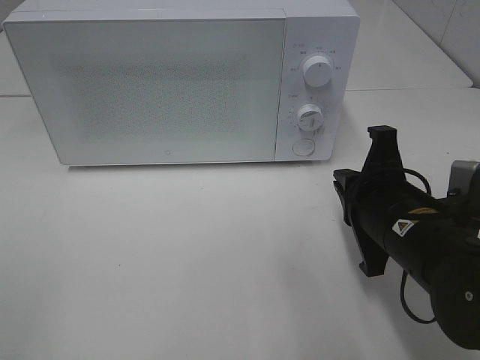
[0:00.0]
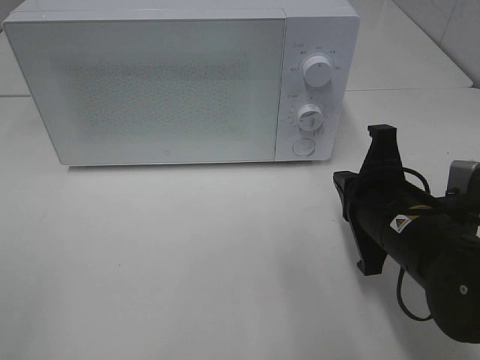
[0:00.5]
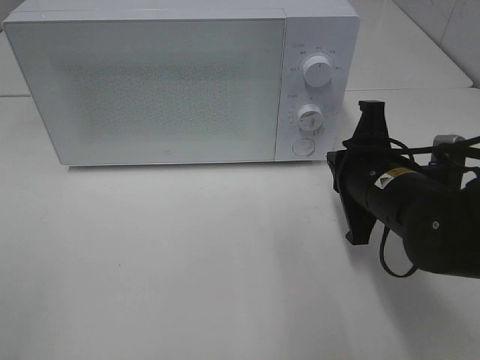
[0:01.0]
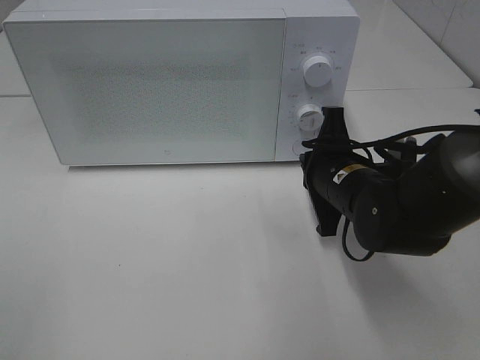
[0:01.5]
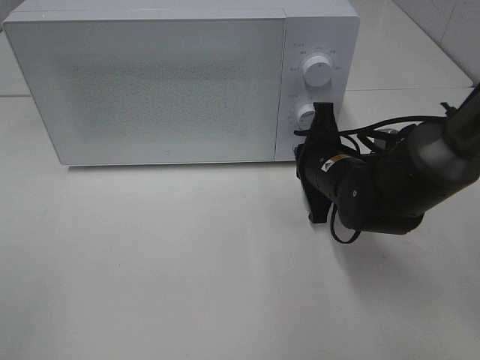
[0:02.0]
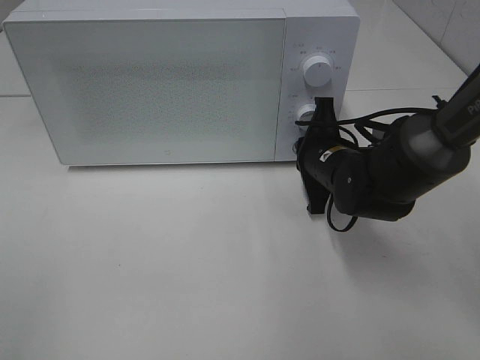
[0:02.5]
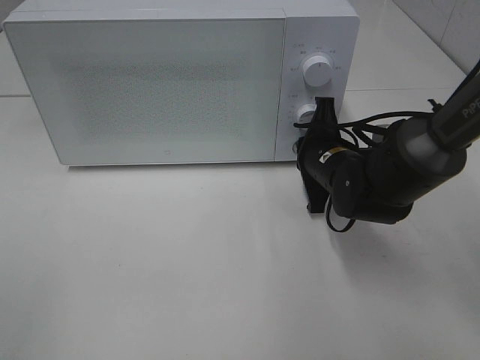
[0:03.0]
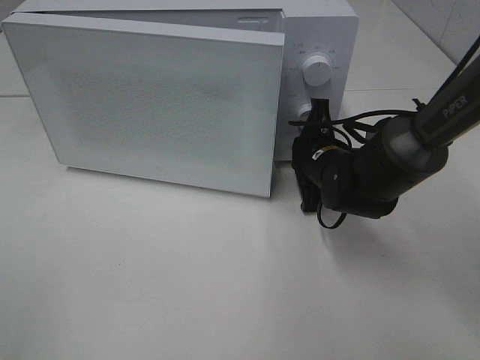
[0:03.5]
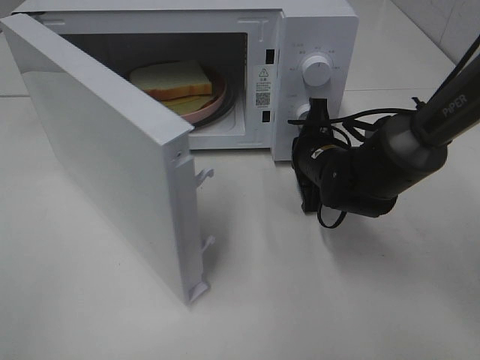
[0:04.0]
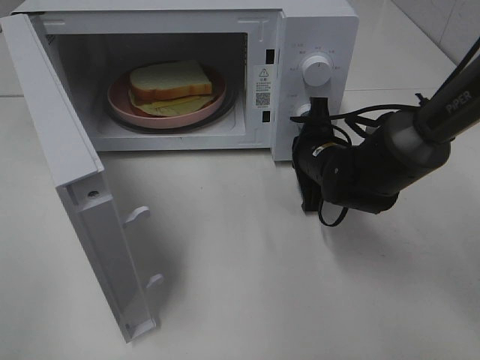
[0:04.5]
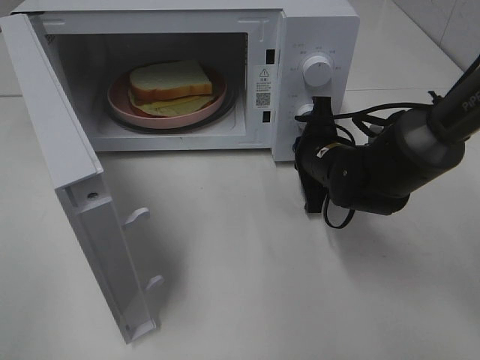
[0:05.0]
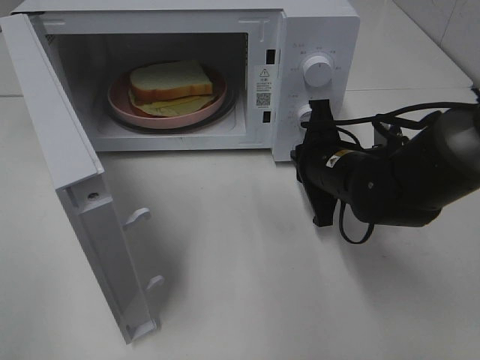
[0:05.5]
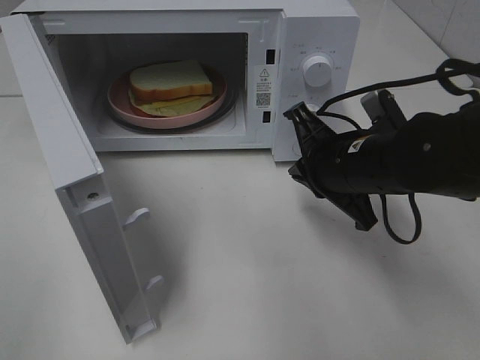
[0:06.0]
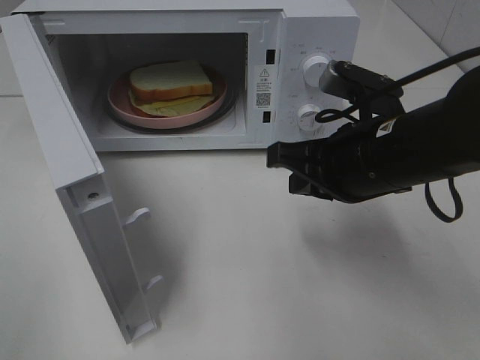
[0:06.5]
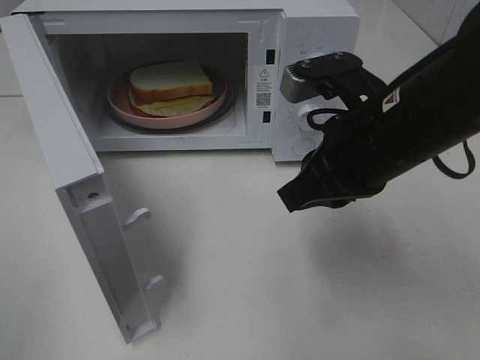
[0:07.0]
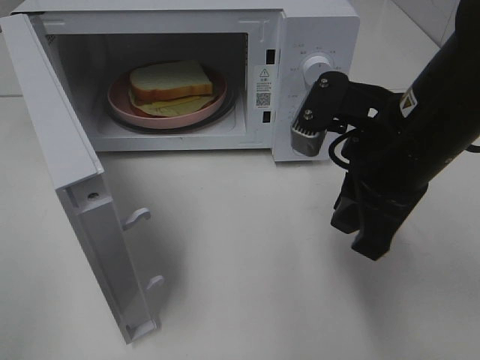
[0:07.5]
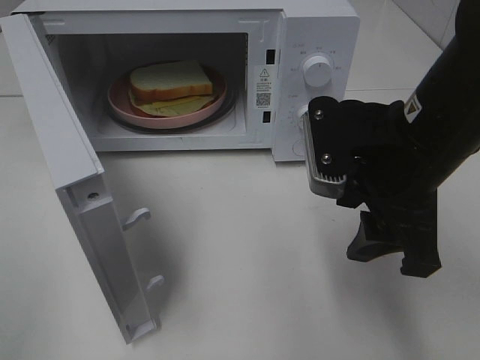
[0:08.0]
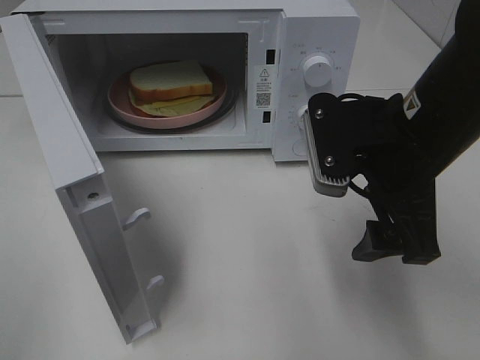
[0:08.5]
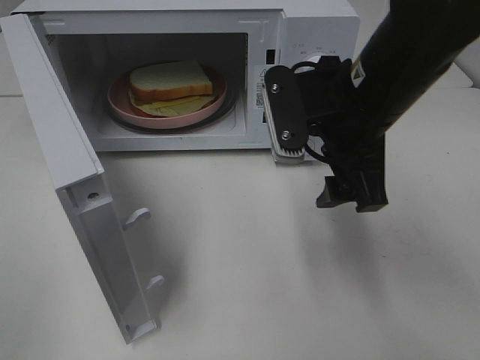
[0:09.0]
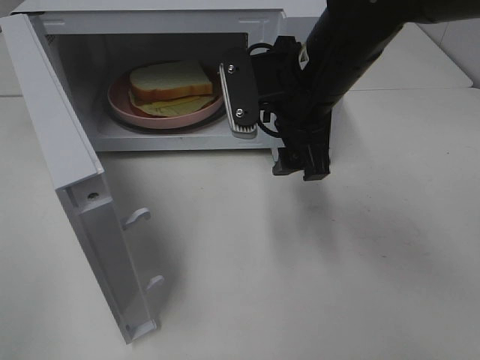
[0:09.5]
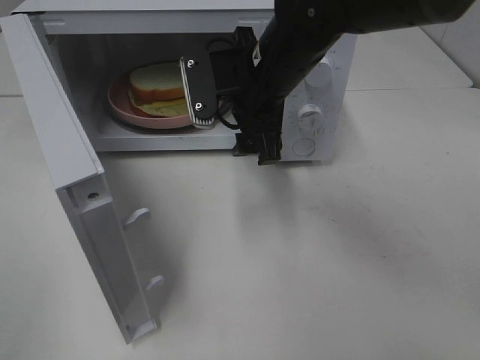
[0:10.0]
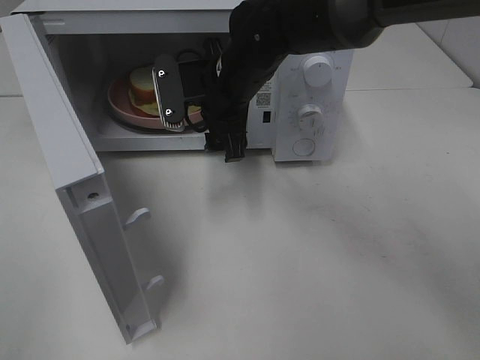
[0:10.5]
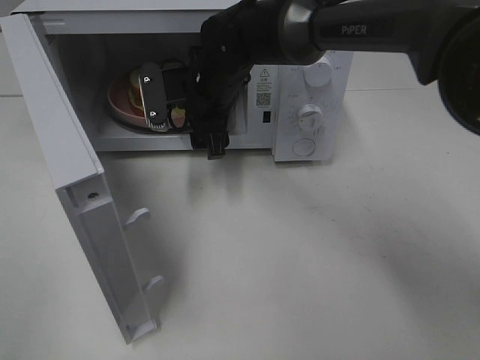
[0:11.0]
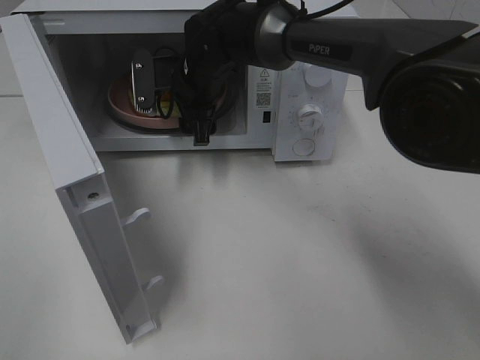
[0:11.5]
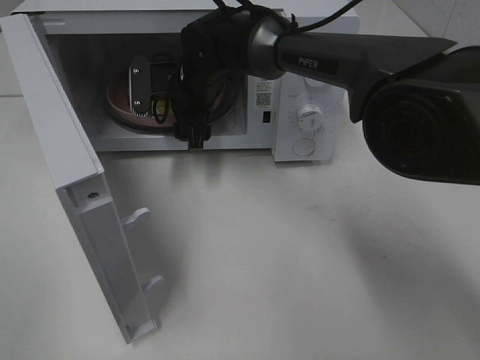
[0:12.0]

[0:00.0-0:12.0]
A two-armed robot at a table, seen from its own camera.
Task of the whole recording: Heat Sandwich.
Step, 0.0 to 5.0 s: Right hand: press the switch.
0.0 to 2.0 s: The right gripper heads forward, covering approximately 10 cm.
4.0 to 6.0 s: The right gripper is displaced backward and upward by about 10 cm.
6.0 to 8.0 s: The right gripper goes some 10 cm upward and backward, and opens up.
8.0 to 10.0 s: The right gripper goes roughly 15 cm forward and to the left.
10.0 to 12.0 s: The right gripper is displaced forward, to the left and downward by about 15 cm.

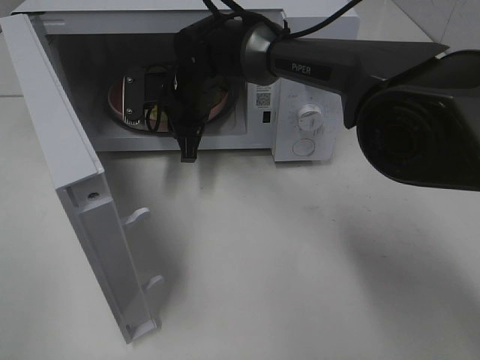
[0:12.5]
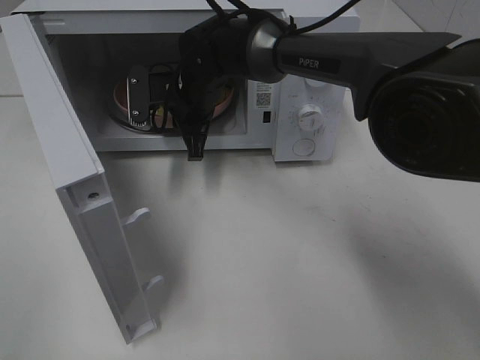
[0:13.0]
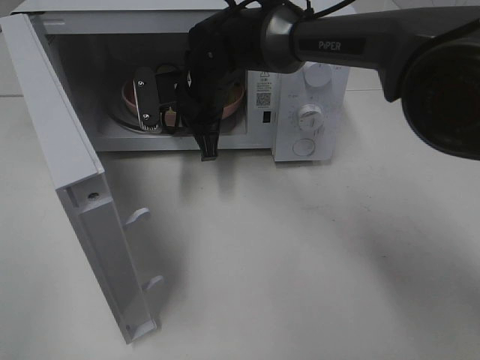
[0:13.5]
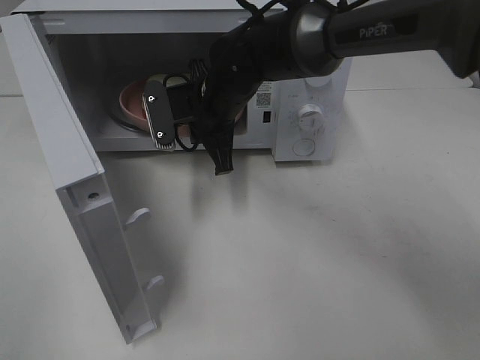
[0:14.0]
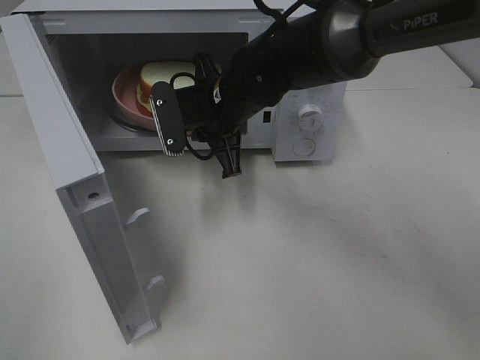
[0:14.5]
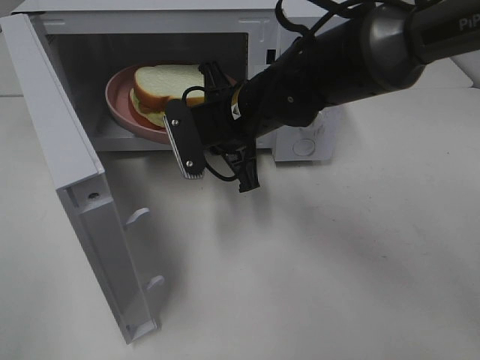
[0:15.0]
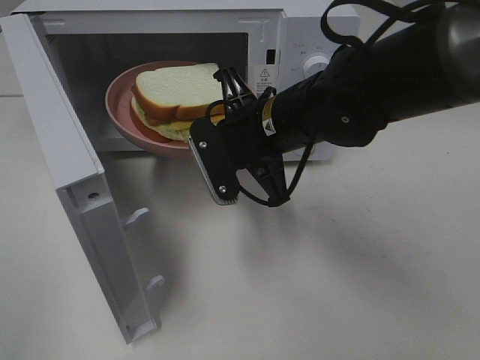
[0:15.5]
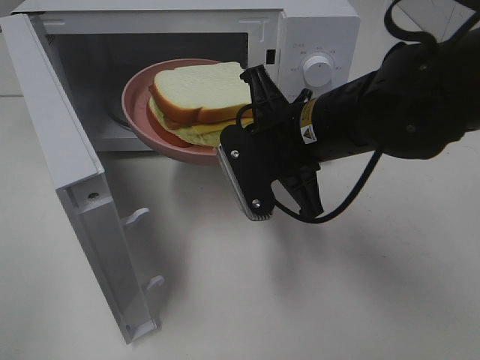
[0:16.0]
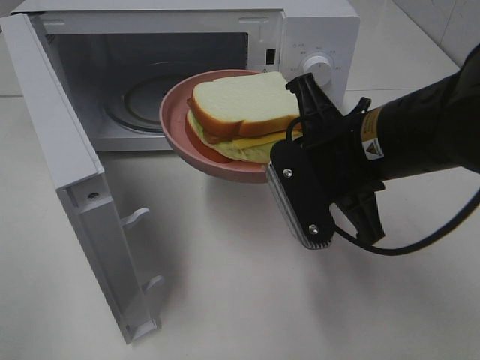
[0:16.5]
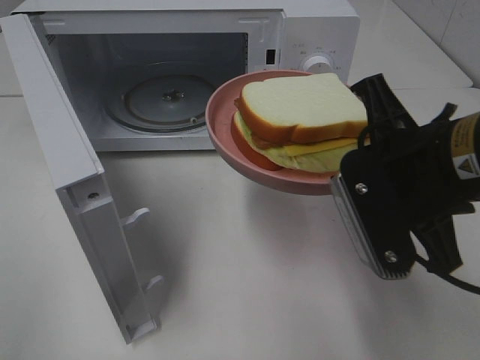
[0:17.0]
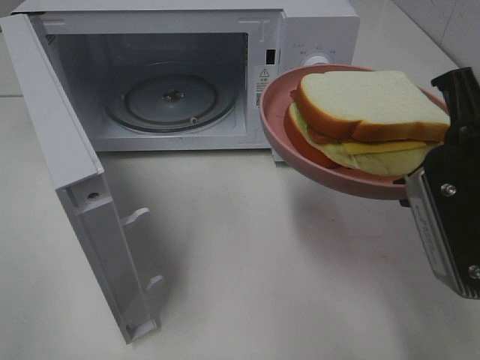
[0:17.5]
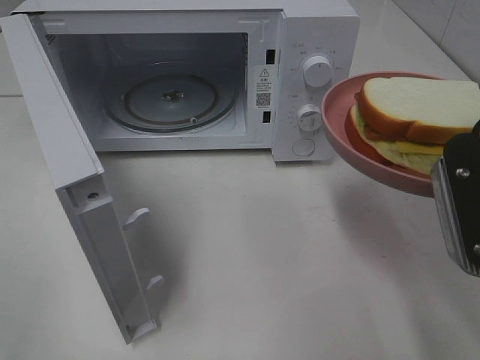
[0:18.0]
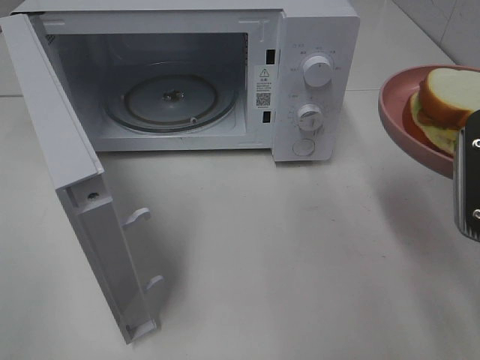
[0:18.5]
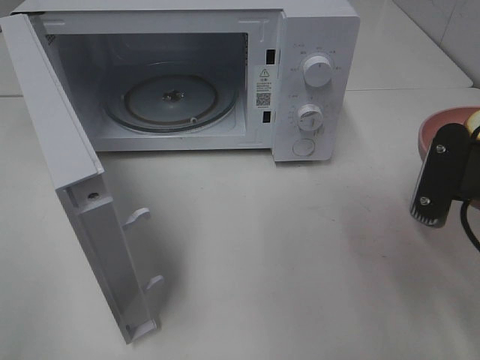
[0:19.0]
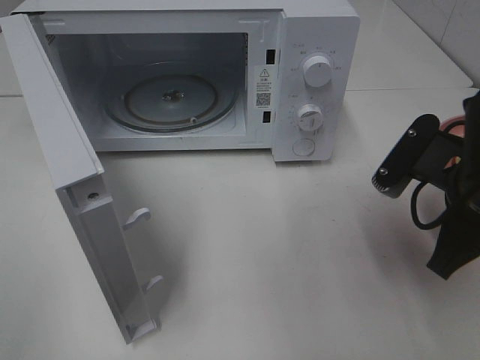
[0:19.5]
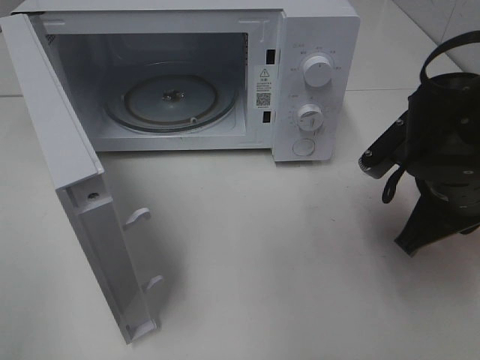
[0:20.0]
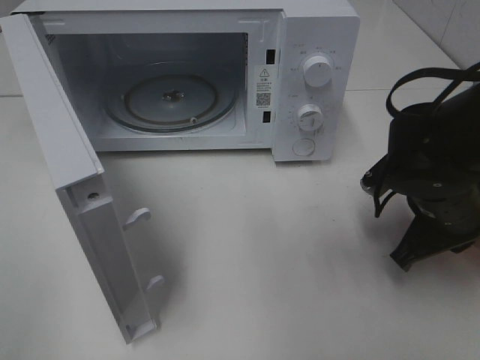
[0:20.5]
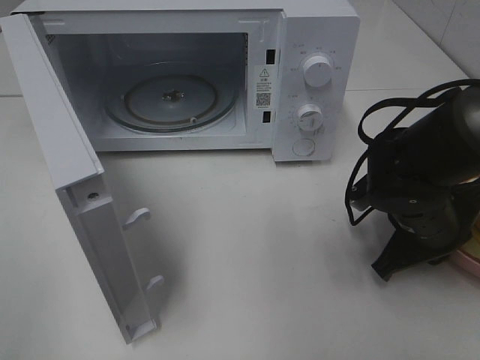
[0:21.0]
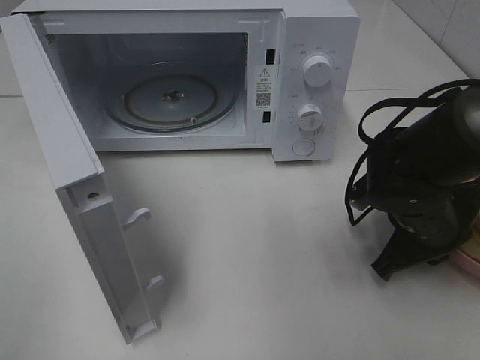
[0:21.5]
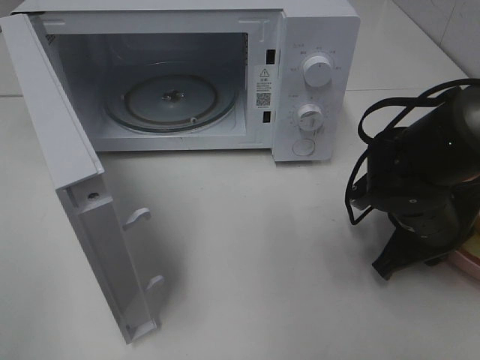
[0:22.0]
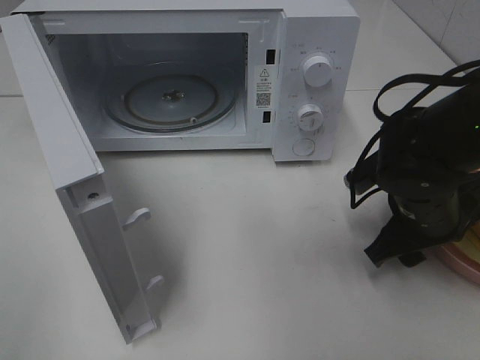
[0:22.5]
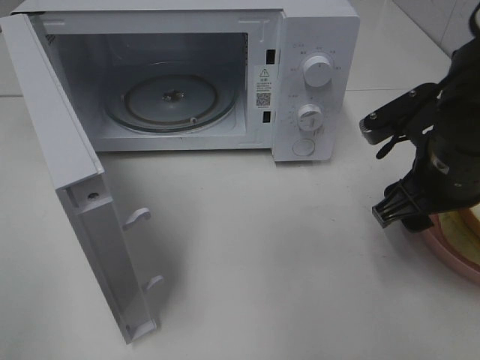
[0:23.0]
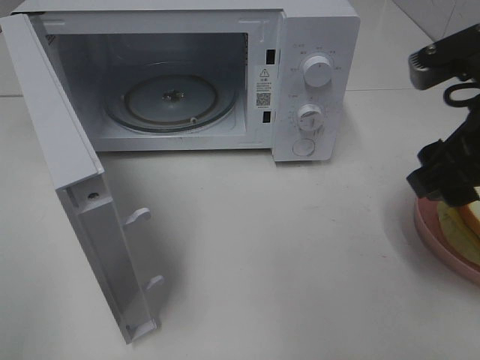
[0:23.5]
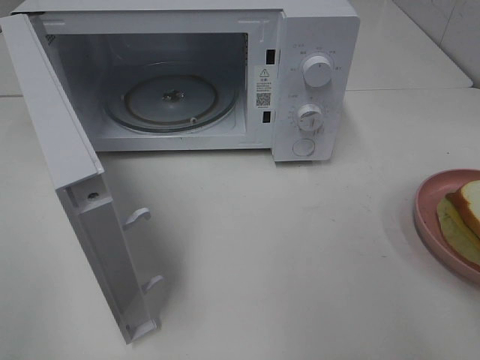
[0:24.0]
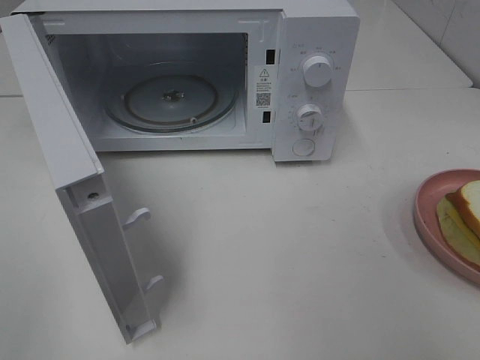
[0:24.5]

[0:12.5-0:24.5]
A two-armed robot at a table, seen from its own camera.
Task of the whole recording: Heat Sandwich.
Step, 13.0 to 23.5 s: Right hand: place the plate on the table.
12.5 to 14.5 s: The right gripper heads backward and to the right, covering some 10 cm.
14.5 to 16.5 s: The right gripper shifts roughly 20 cm backward and to the right.
16.5 to 18.5 s: The right gripper shifts roughly 15 cm to the right and backward.
18.5 to 20.5 s: The right gripper is displaced downward and forward by roughly 15 cm.
20.5 to 22.5 s: The right gripper opens up.
22.5 to 24.5 s: The right gripper travels backward, upward and to the right by approximately 30 cm.

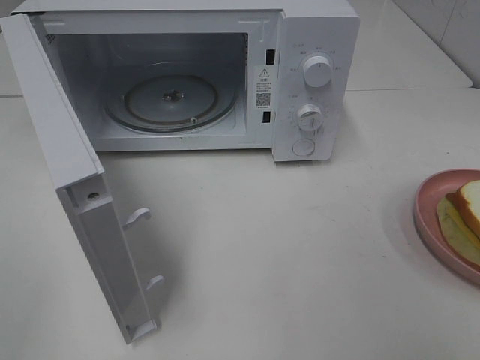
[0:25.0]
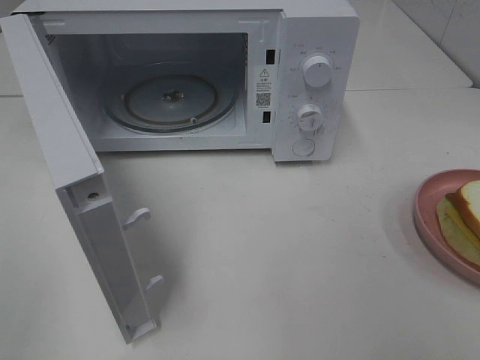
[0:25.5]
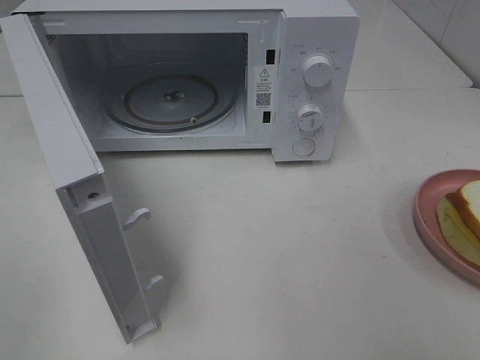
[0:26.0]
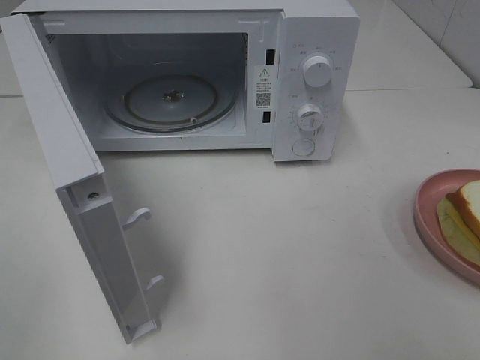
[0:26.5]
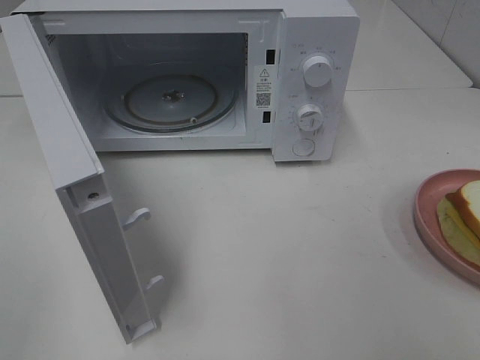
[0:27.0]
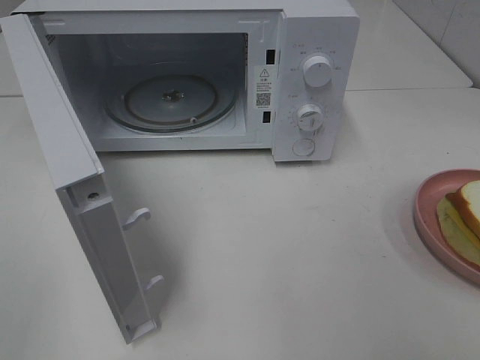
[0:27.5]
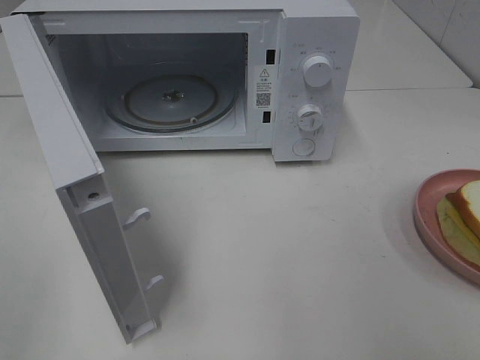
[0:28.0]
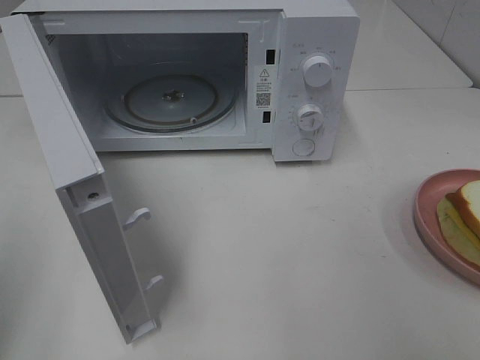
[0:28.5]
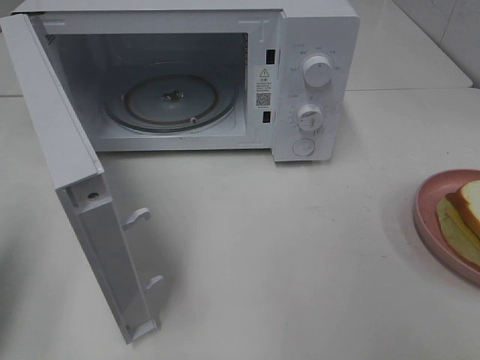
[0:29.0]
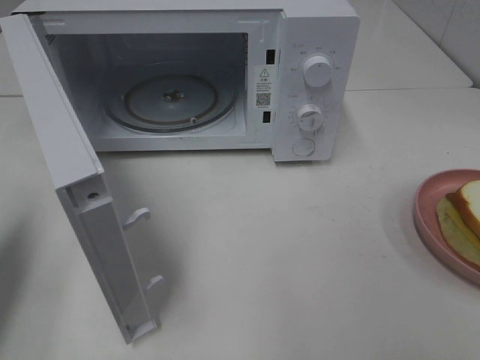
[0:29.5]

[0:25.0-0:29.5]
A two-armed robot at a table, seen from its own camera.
Task of the whole recording: Heat Sandwich.
27.0 to 29.5 s: The left gripper moves forward, about 20 cm, and closes up.
